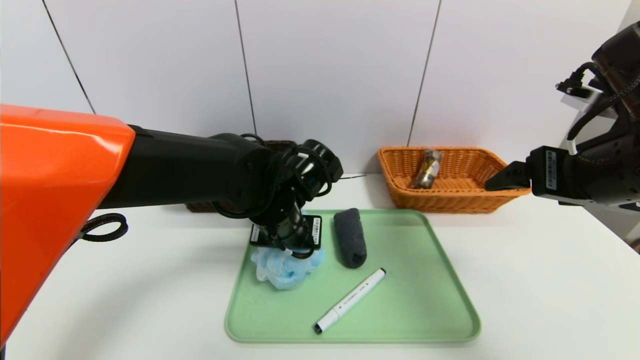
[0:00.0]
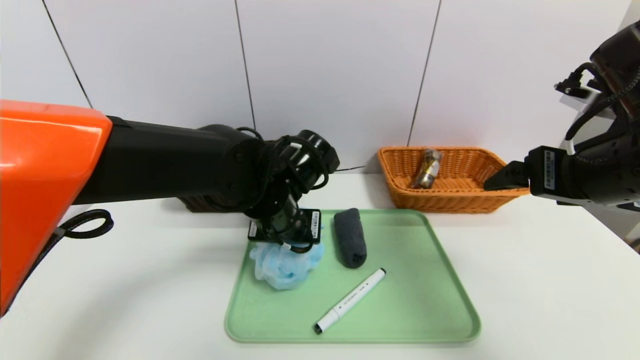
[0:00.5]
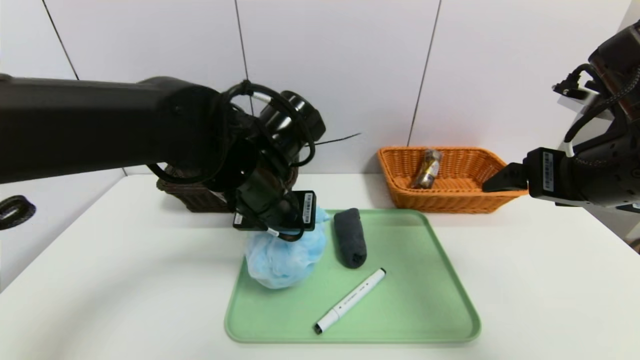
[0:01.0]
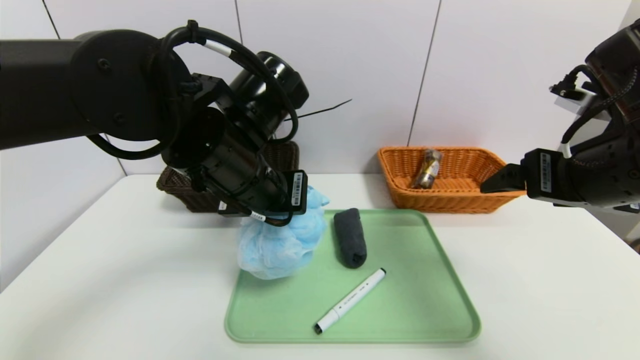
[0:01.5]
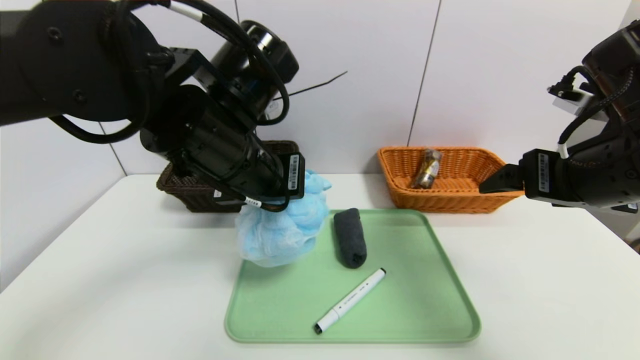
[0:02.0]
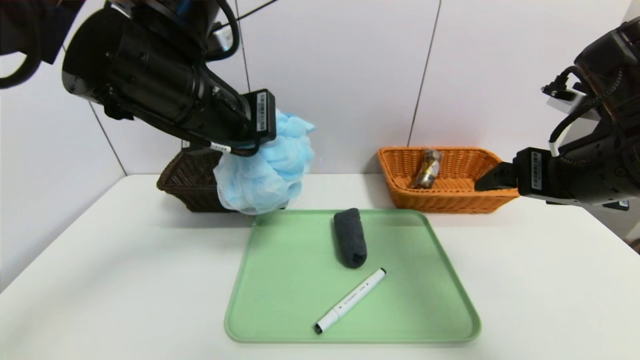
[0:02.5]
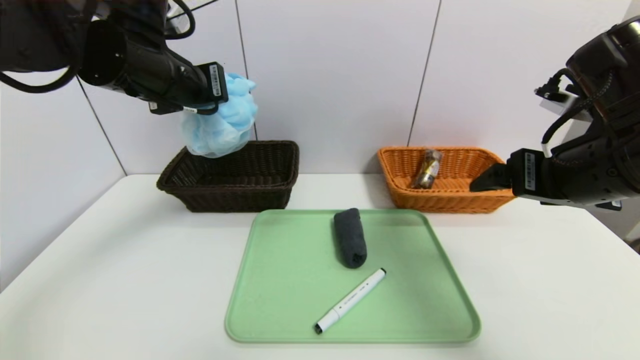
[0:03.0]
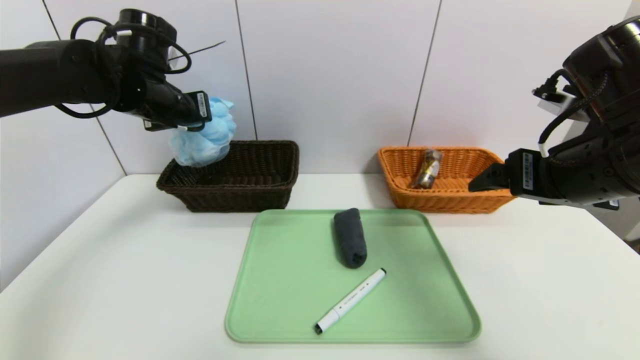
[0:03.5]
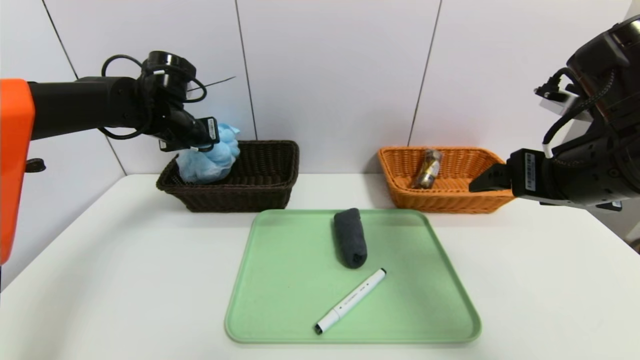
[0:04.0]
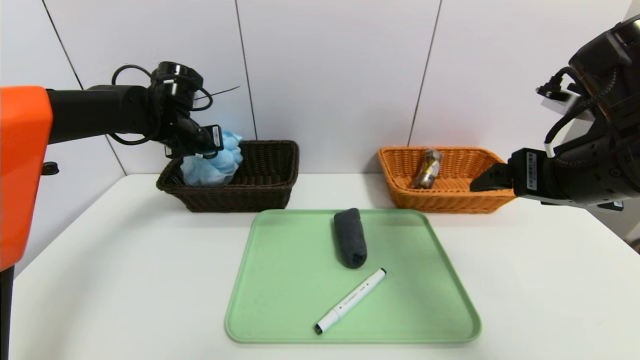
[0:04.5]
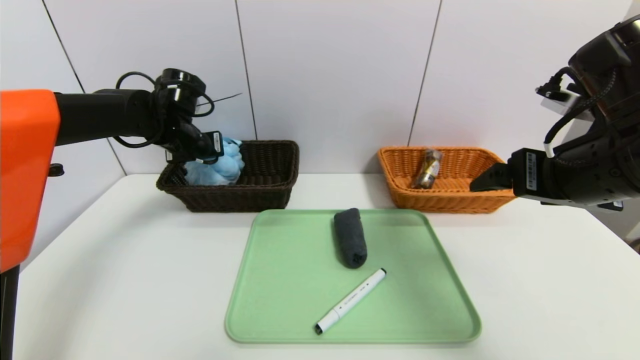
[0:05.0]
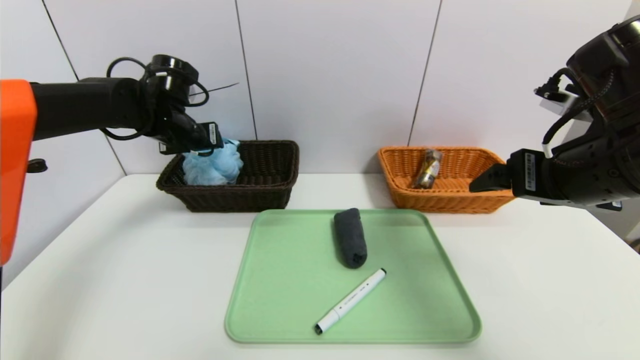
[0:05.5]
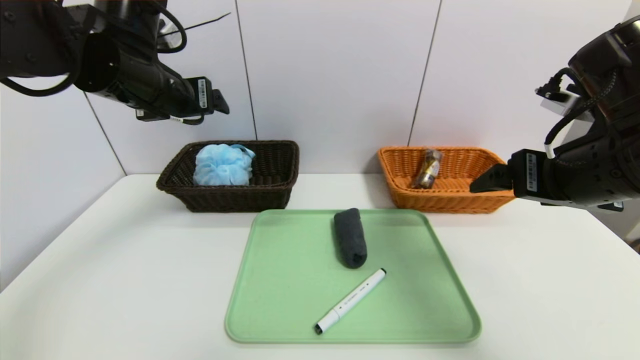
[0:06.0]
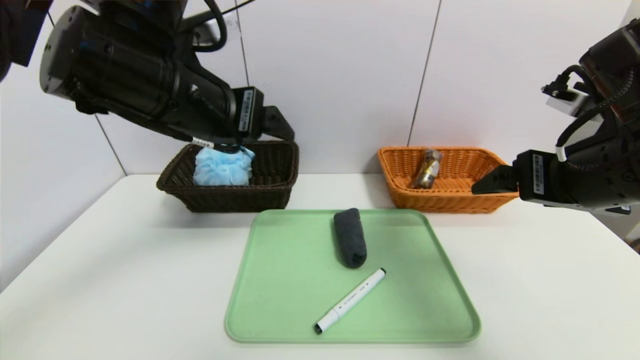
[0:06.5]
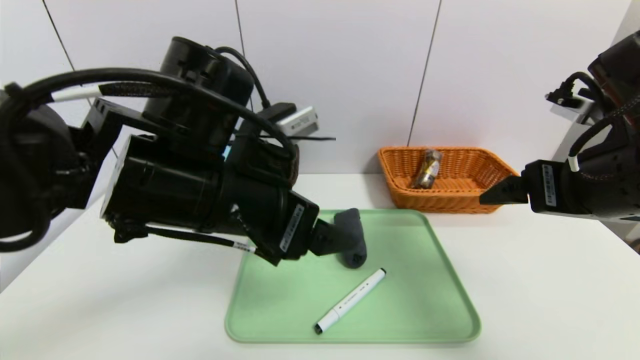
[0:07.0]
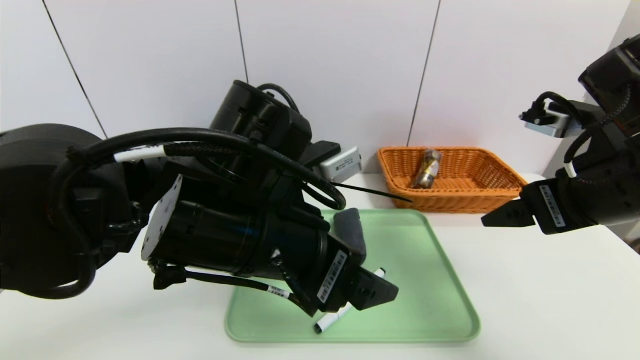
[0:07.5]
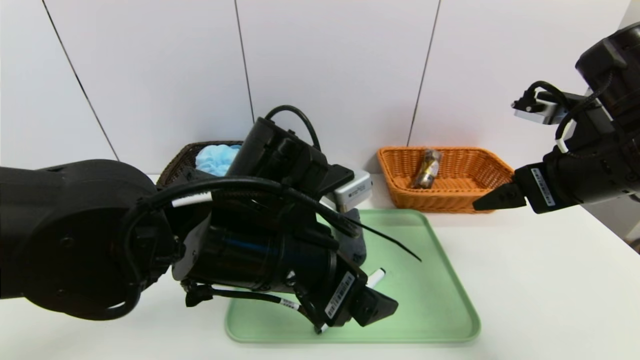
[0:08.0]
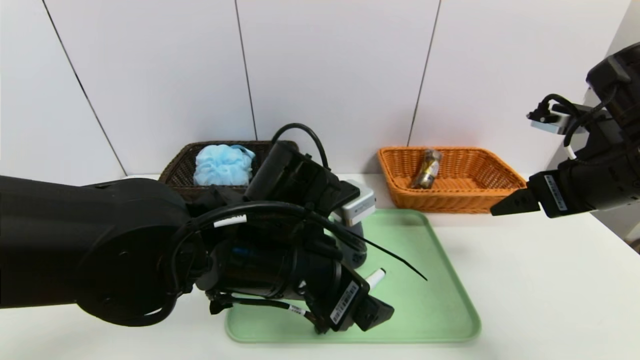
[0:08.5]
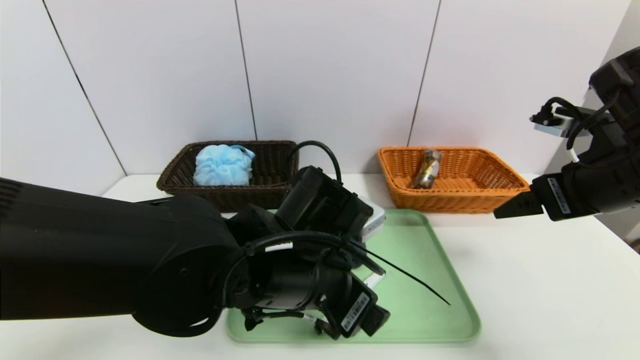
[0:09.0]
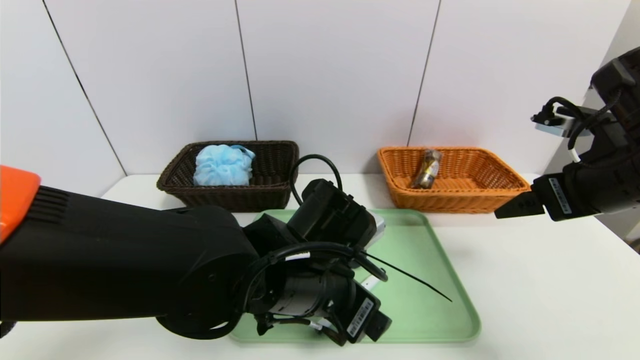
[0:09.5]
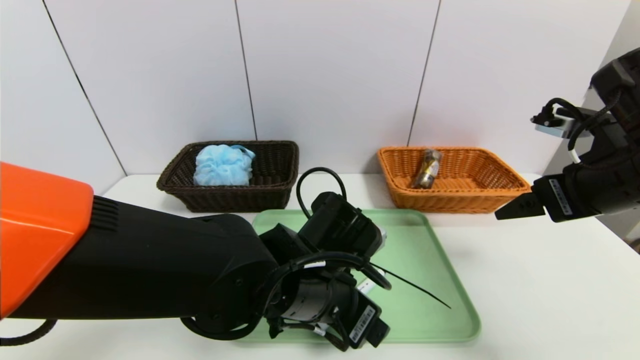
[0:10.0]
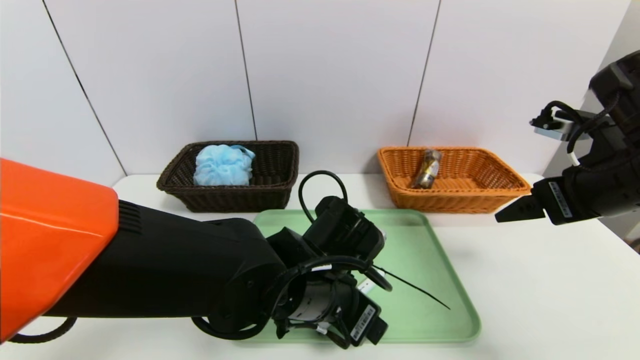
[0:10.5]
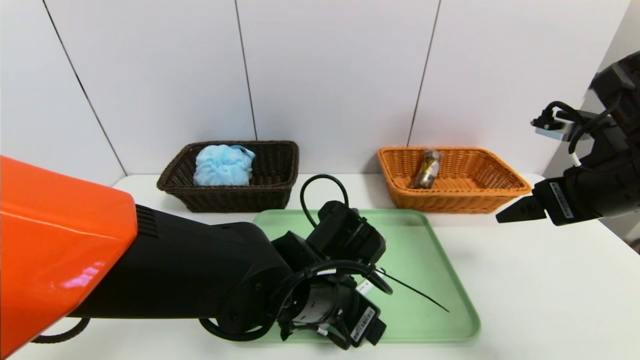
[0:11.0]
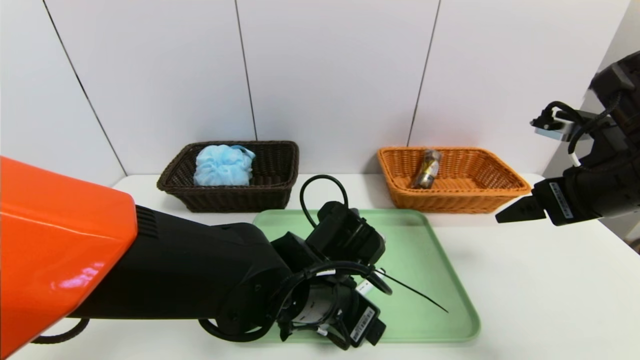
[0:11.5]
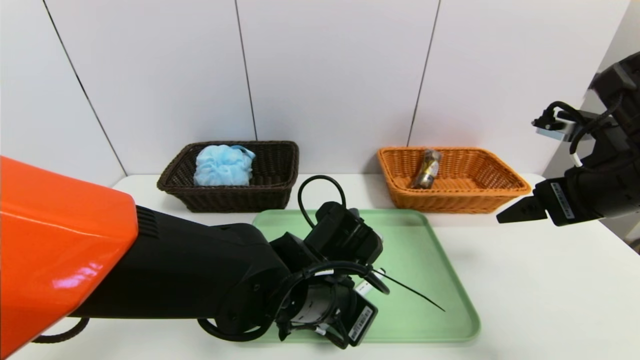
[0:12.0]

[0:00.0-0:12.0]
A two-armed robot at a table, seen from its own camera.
Task of the whole recording: place the food in the right basket with the right gripper, and place the non food items in the left basket with the left gripper.
Step, 0:00.0 to 0:05.5: Grasp the shower sphere and put it in the left basket.
0:00.0 to 0:02.0: The left gripper shifts approximately 10 cm upward.
0:02.0 to 0:04.0: The left gripper shifts some 25 cm forward and to the left.
0:04.0 to 0:06.0: The left gripper shifts roughly 10 cm backward and upward, and opens.
0:06.0 to 0:08.0: The left gripper goes some 25 cm to the right, backward and downward.
0:08.0 to 0:10.0: The left gripper travels downward by some 10 cm.
0:10.0 to 0:12.0: The left gripper closes up.

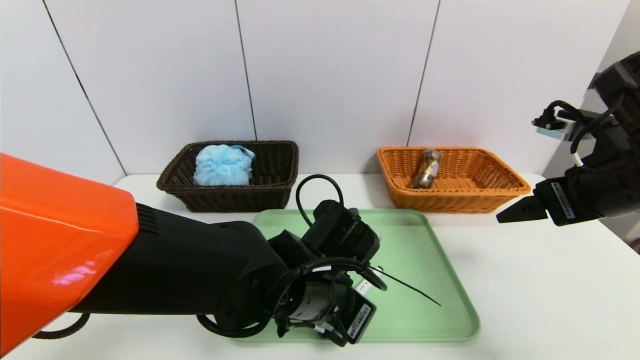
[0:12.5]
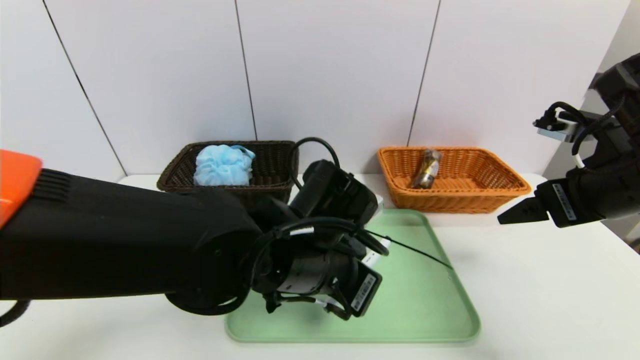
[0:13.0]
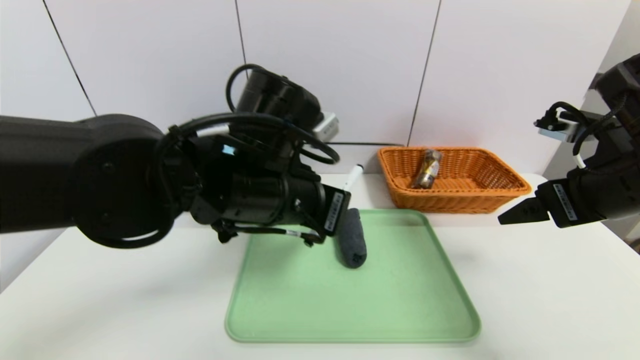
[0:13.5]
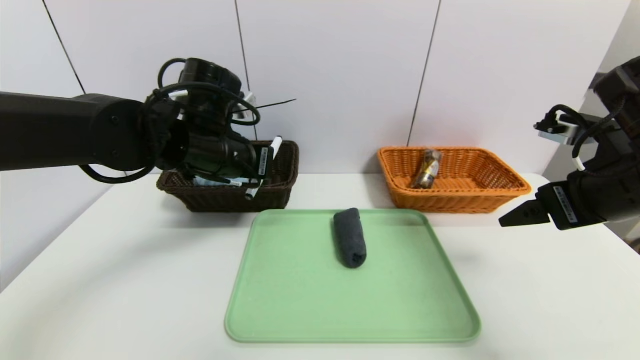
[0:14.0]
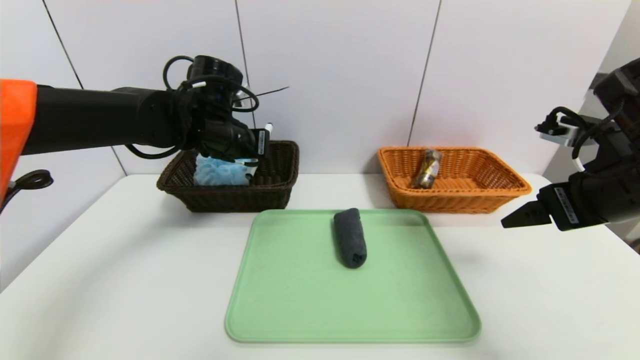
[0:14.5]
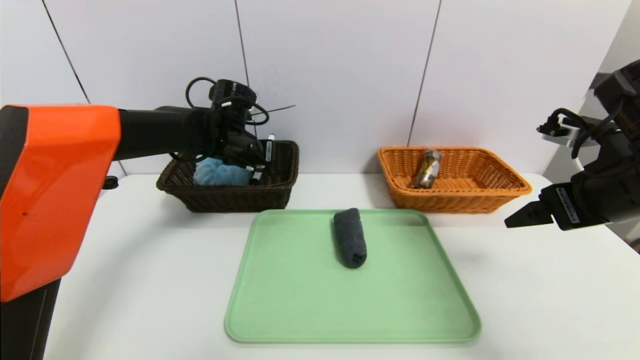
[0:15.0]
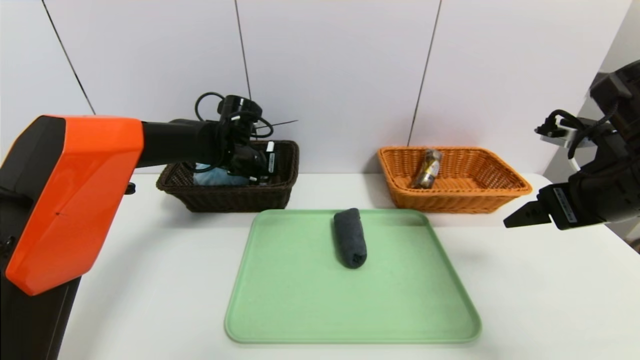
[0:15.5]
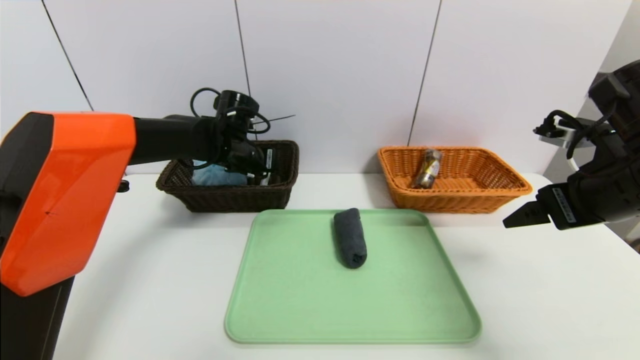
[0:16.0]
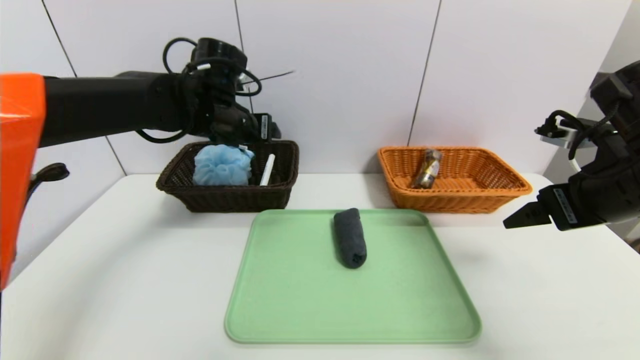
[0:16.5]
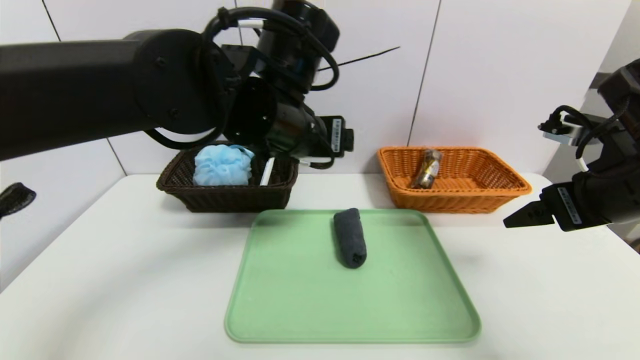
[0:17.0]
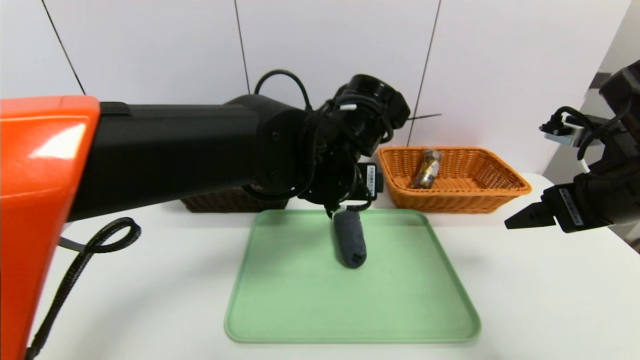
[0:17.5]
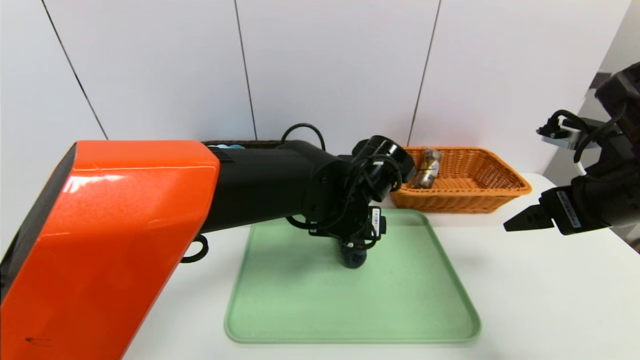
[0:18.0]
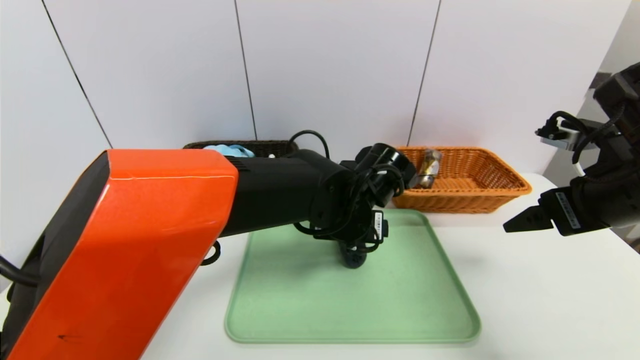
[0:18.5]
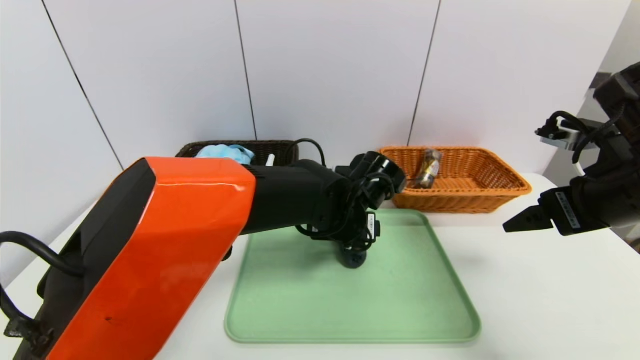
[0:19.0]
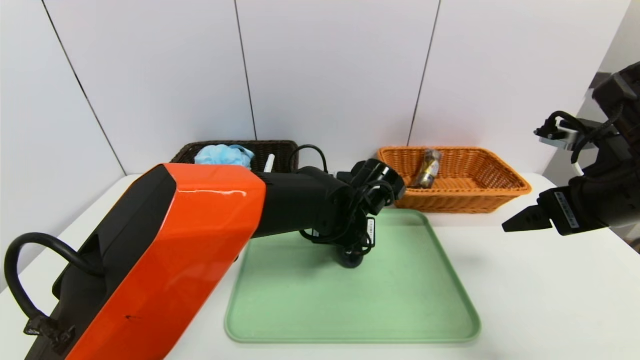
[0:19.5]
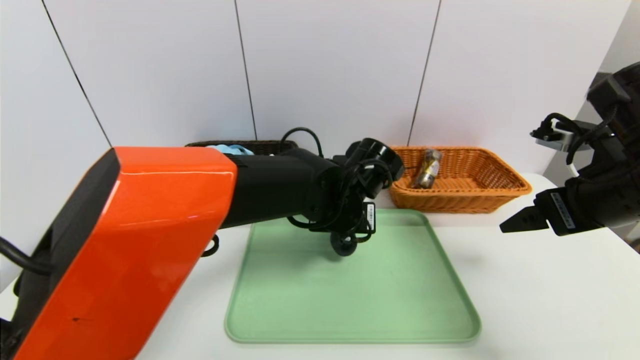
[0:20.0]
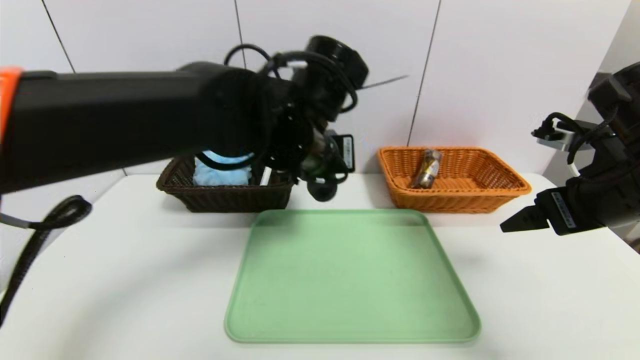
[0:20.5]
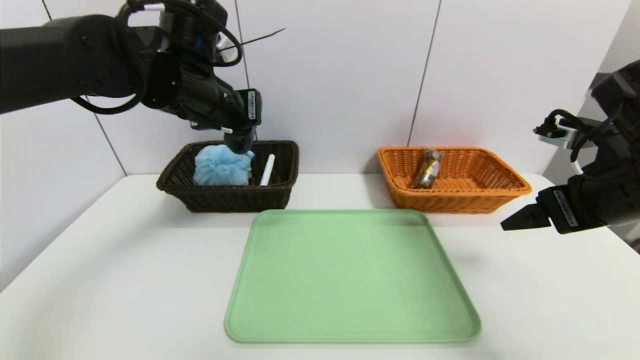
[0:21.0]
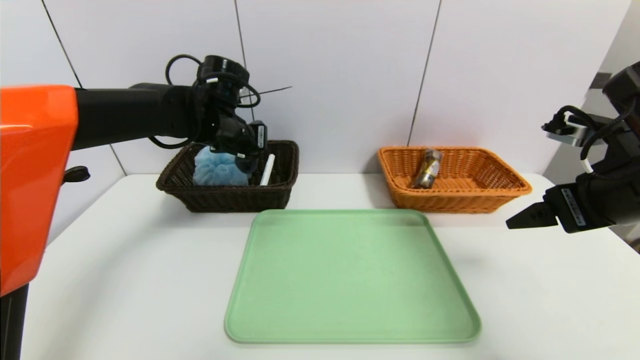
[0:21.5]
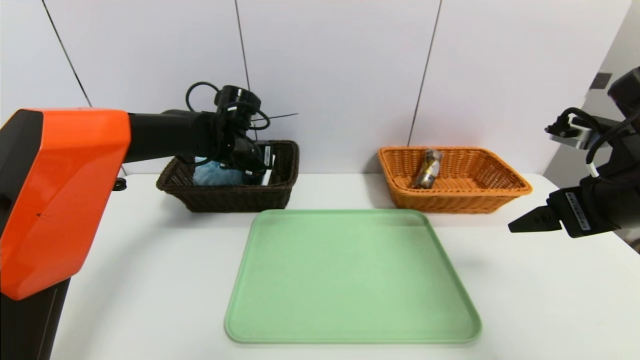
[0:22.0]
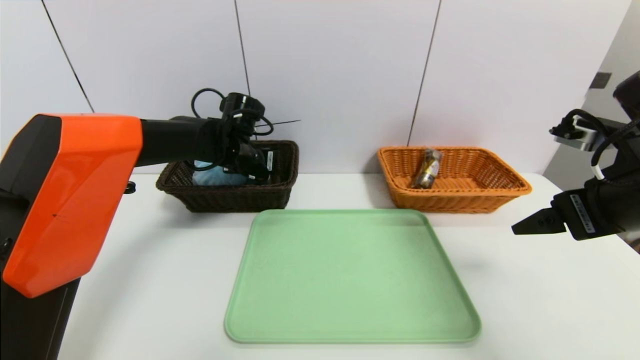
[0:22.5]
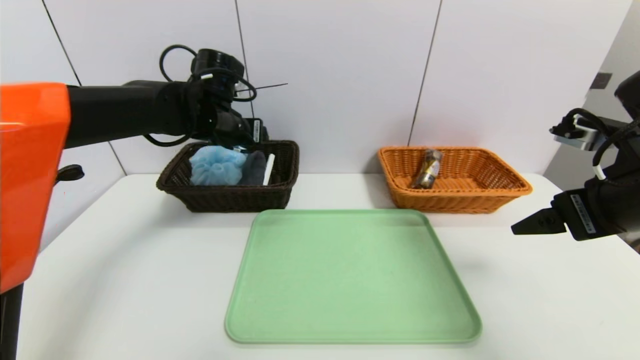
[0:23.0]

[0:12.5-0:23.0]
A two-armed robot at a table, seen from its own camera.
Task of the whole recording: place the food in the right basket with the right gripper, and place the non food items in the left basket with the left gripper.
Step, 0:12.5 to 0:16.0: Grasp the pen container and put it in the left basket.
Step, 0:16.5 to 0:23.0: Grasp the grey towel and put it in the left basket.
0:12.5 to 0:14.5: The left gripper heads forward, to the left and upward, covering about 25 cm.
0:14.5 to 0:16.5: The left gripper goes downward and returns, about 5 cm each way, and opens up.
0:16.5 to 0:19.0: The left gripper goes approximately 20 cm to the right and downward.
0:19.0 to 0:21.0: The left gripper heads to the left and upward, covering some 25 cm, and closes.
0:21.0 to 0:23.0: The left gripper goes roughly 5 cm forward, and opens.
